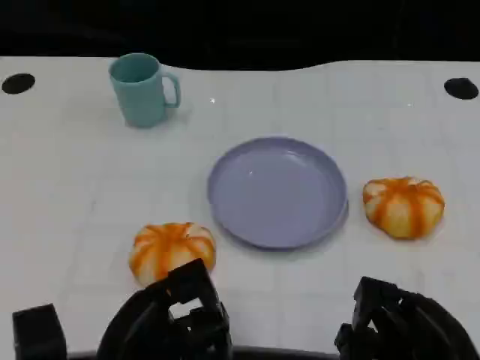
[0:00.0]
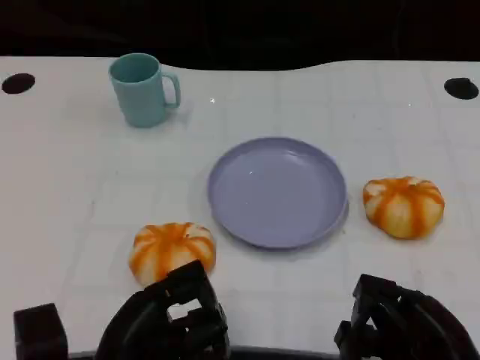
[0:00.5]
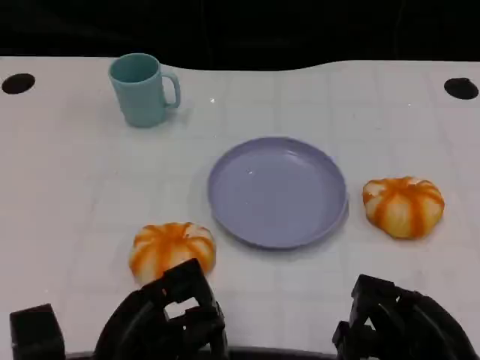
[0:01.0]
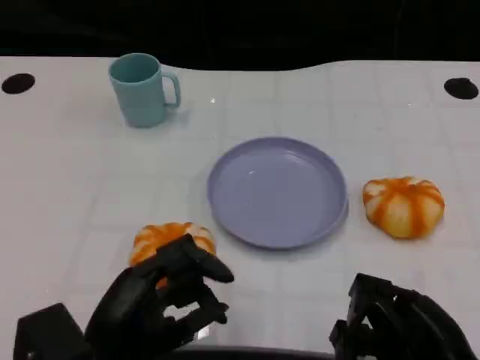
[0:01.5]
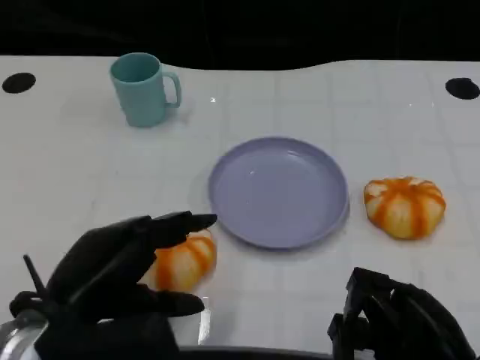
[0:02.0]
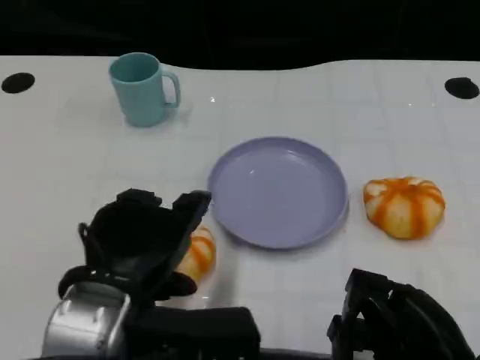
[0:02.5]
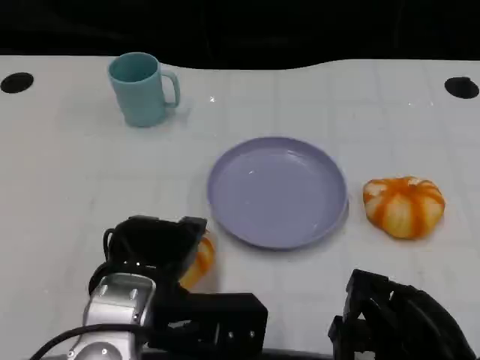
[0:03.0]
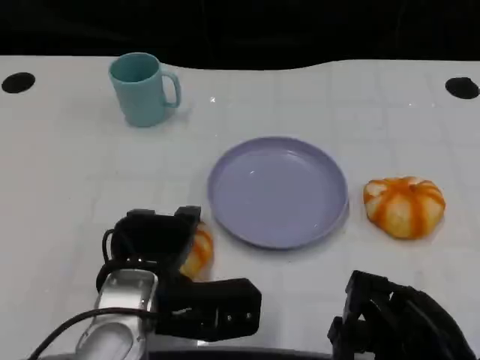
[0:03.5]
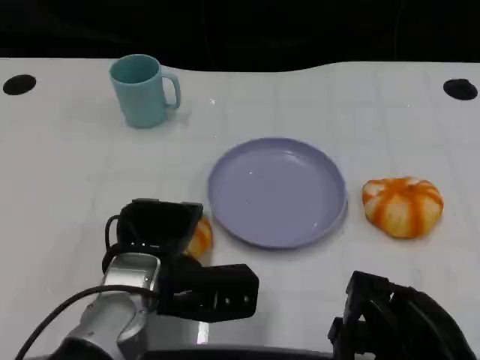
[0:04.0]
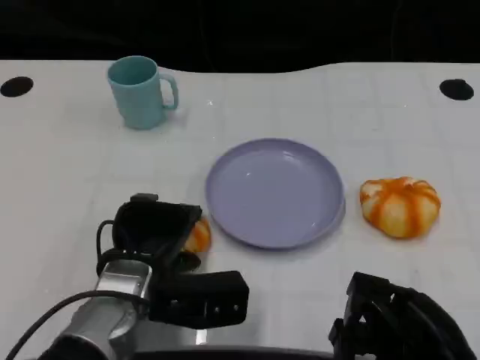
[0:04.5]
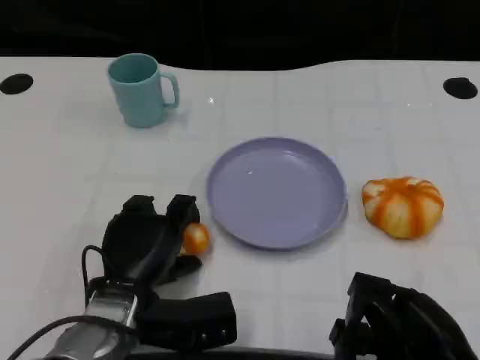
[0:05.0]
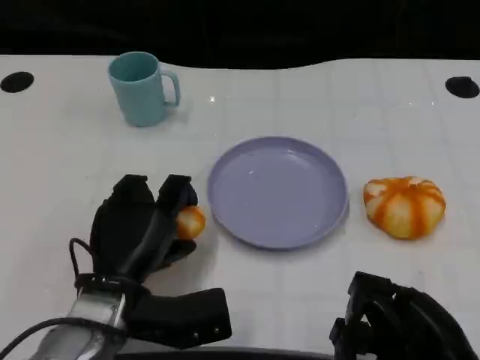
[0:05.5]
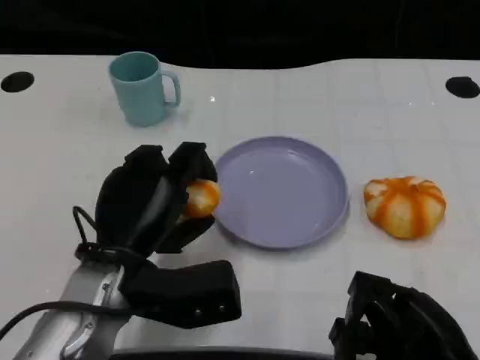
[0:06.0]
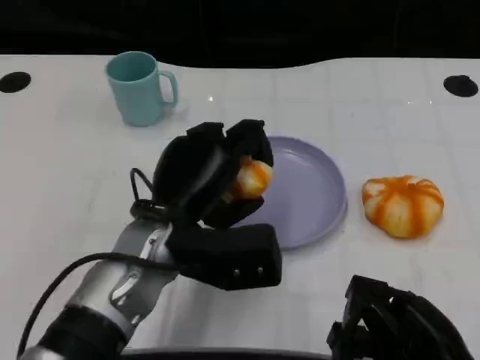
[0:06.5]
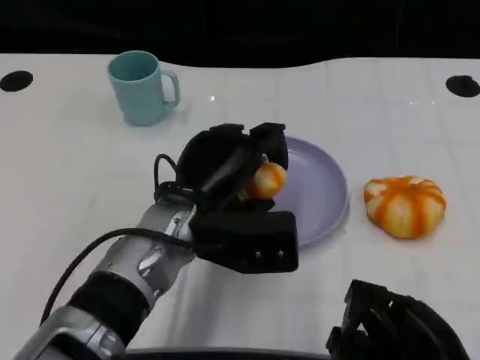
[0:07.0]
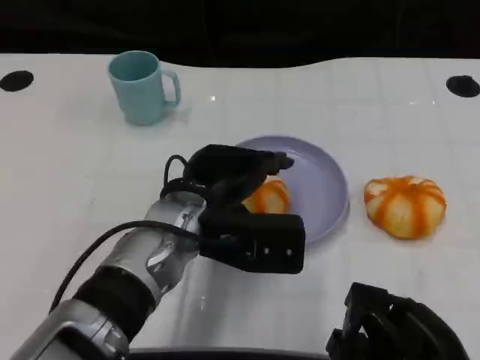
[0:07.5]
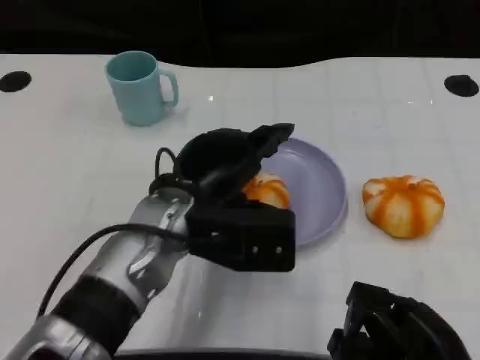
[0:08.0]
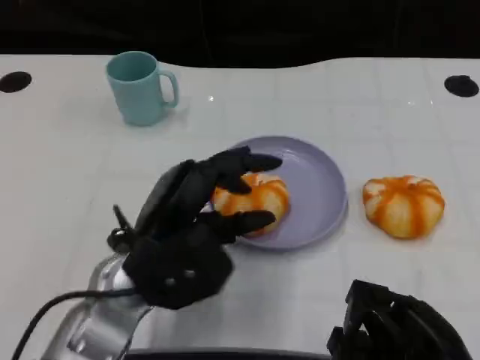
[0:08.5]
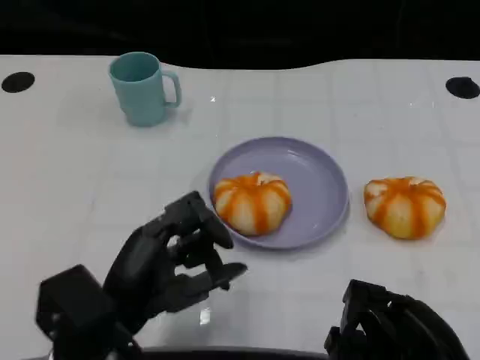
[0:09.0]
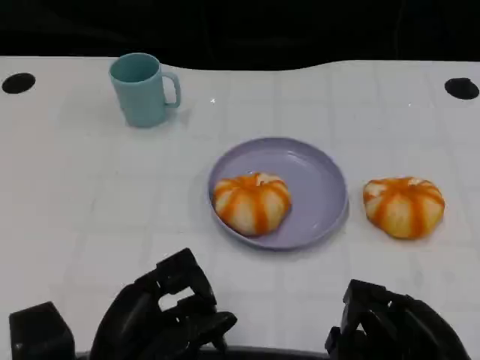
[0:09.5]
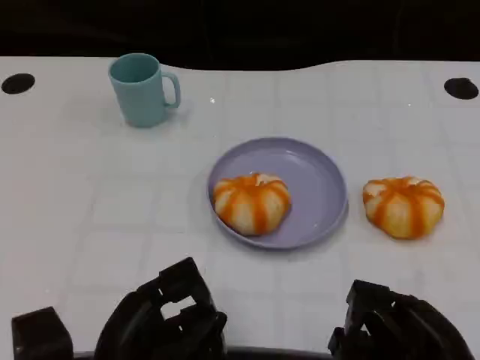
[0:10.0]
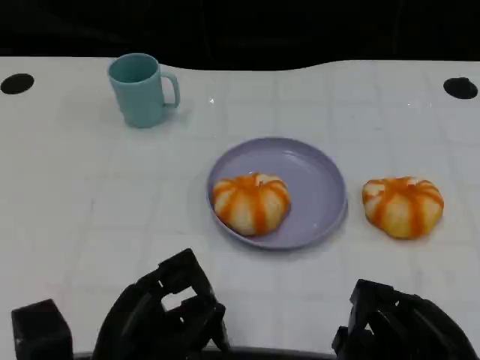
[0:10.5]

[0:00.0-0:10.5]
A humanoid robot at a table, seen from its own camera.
Task of the whole recording: Grasp the bread from the table and place it into the plate.
0:00.0 to 0:02.0: The left hand is displaced upward by approximately 10 cm.
0:02.0 to 0:04.0: The left hand moves forward, downward and to the right, about 15 cm.
0:04.0 to 0:06.5: The left hand changes place by approximately 5 cm.
0:08.5 to 0:10.5: The left hand shifts some 10 cm backward and downward.

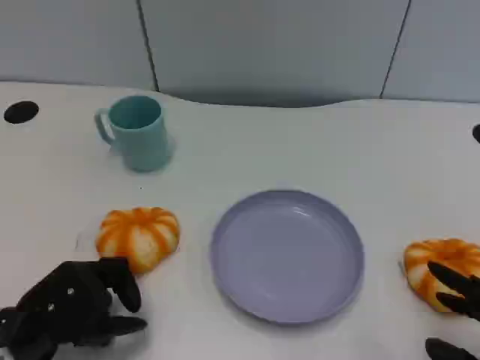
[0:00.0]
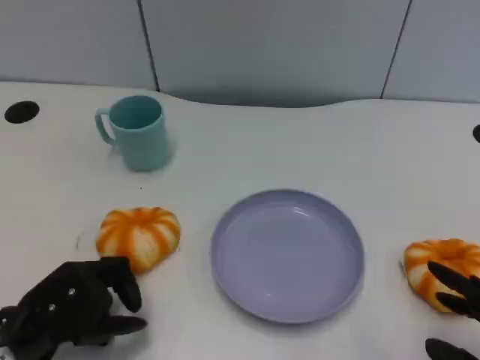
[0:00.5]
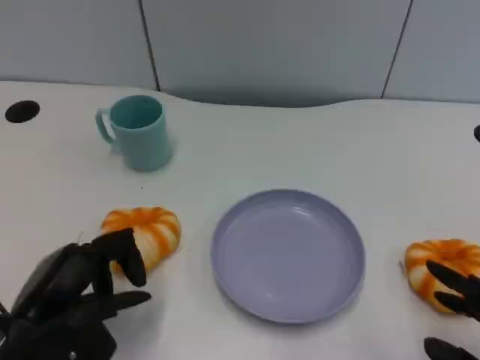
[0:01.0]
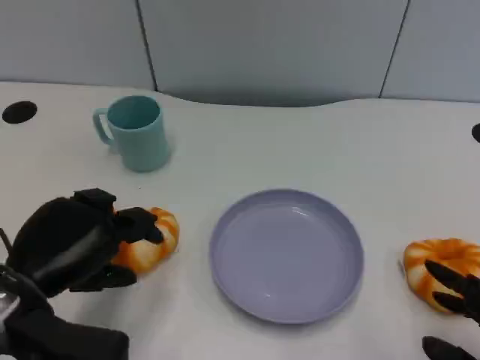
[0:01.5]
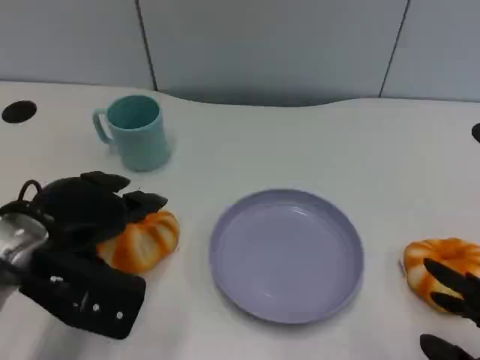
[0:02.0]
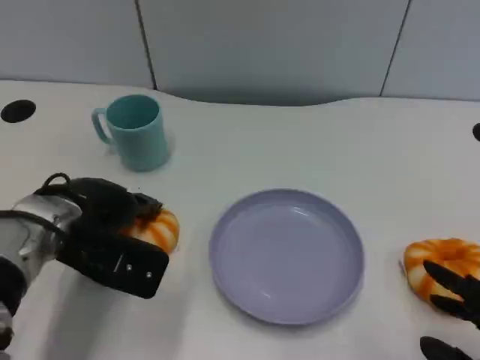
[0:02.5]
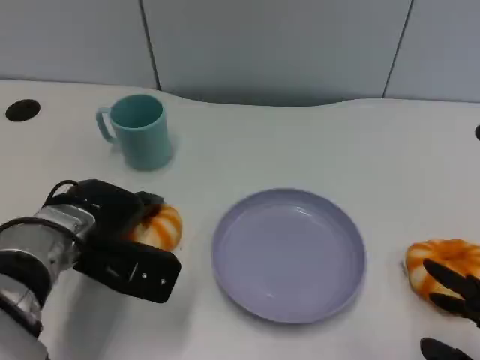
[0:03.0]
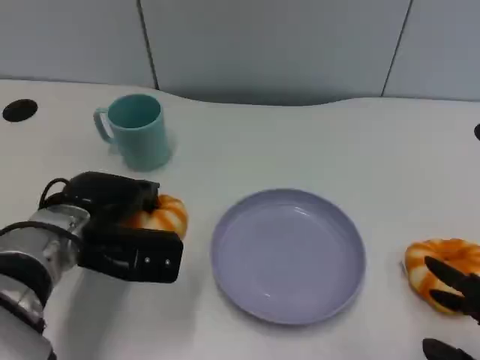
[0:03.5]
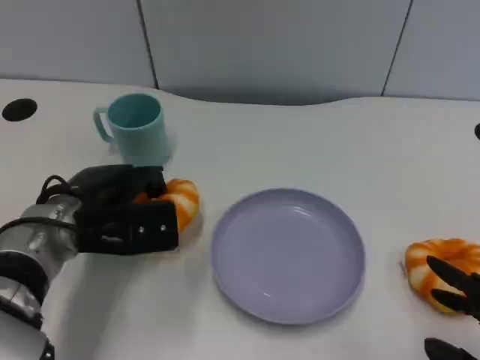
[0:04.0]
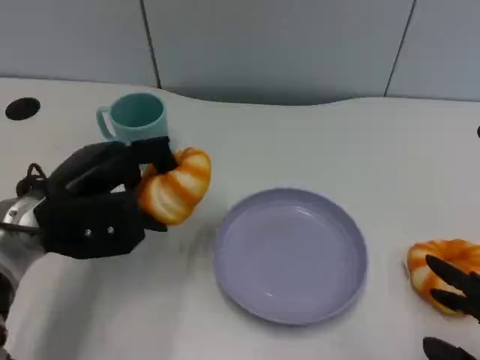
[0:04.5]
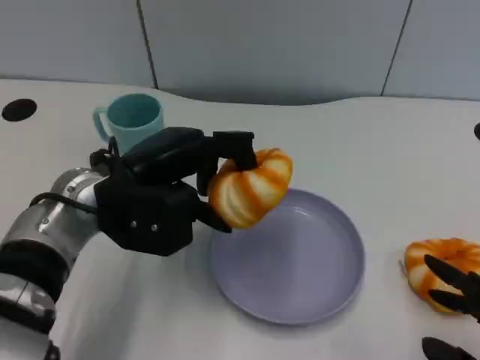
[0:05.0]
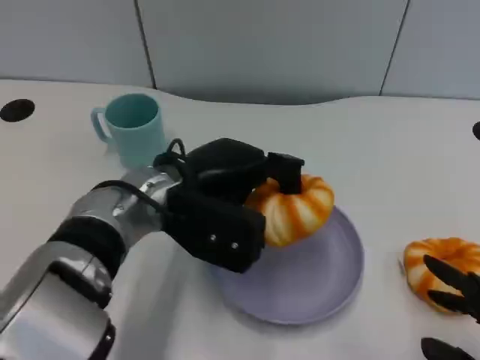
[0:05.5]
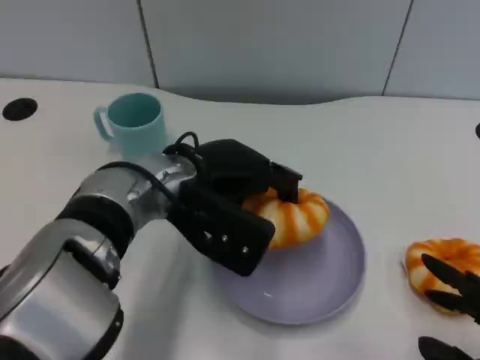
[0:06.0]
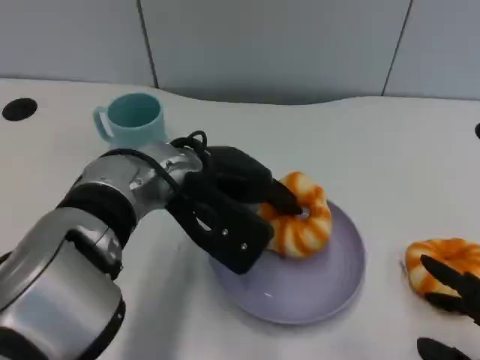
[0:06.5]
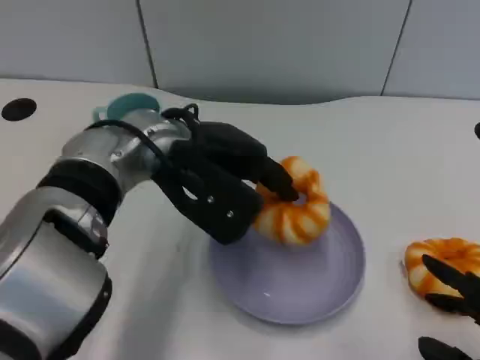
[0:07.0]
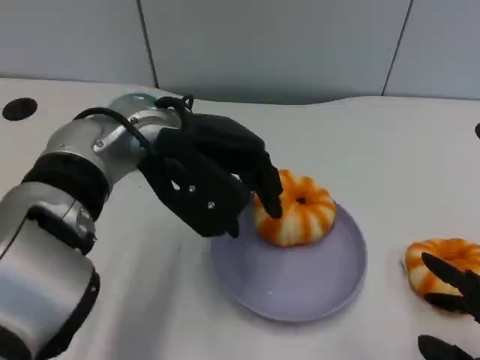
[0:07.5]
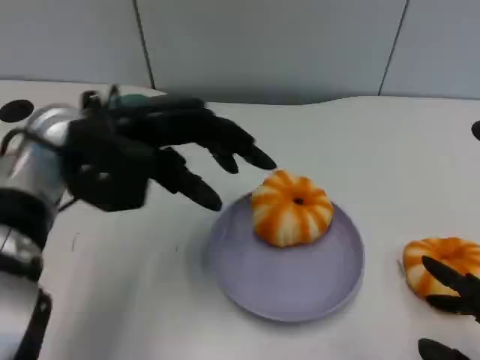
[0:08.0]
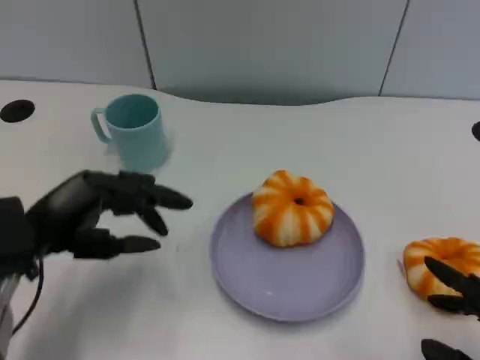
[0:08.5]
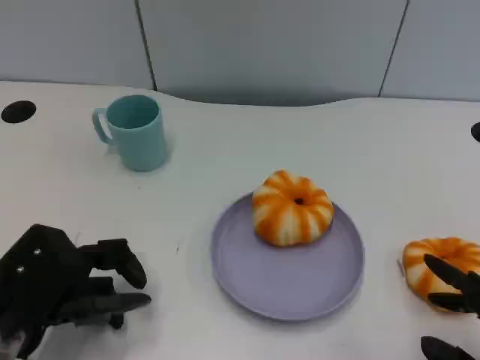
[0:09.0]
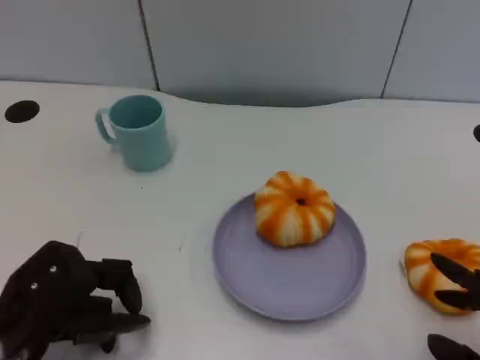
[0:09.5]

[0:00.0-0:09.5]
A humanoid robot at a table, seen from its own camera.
Task of the whole recording: Grasp the bread from the table and place it into the plate.
0:00.0 to 0:02.0: The left hand is displaced forward and upward by about 10 cm.
0:02.0 to 0:04.0: The left hand shifts by approximately 5 cm.
0:04.0 to 0:05.5: The left hand moves to the right, approximately 10 cm.
0:05.5 to 0:07.5: The left hand travels upward by approximately 5 cm.
0:07.5 to 0:09.5: The left hand moves to the left, backward and downward, some 25 cm.

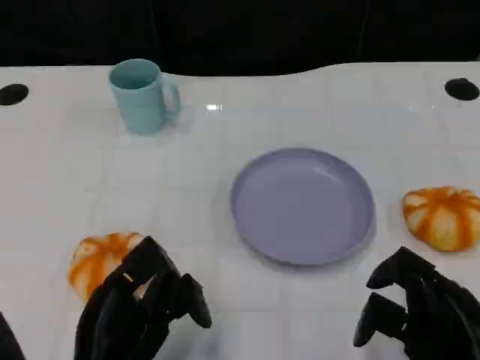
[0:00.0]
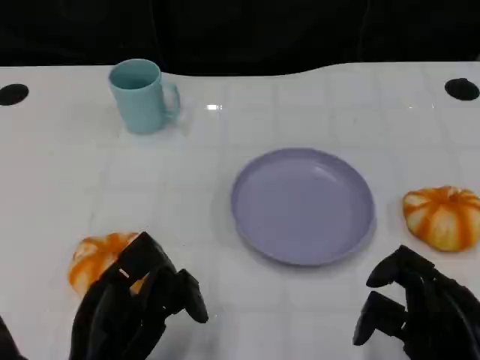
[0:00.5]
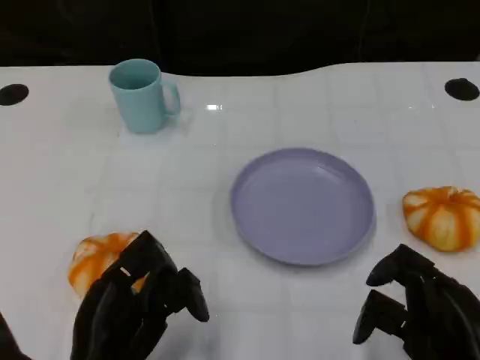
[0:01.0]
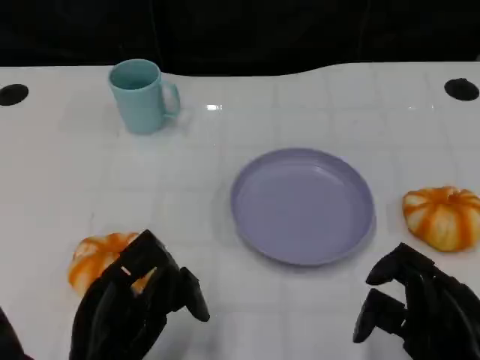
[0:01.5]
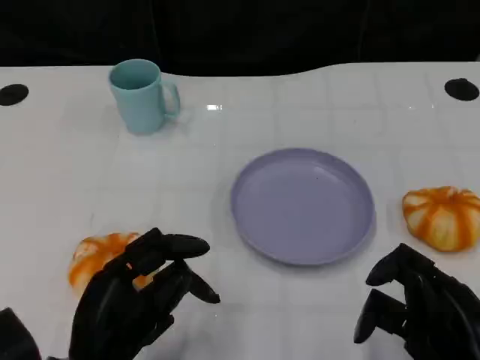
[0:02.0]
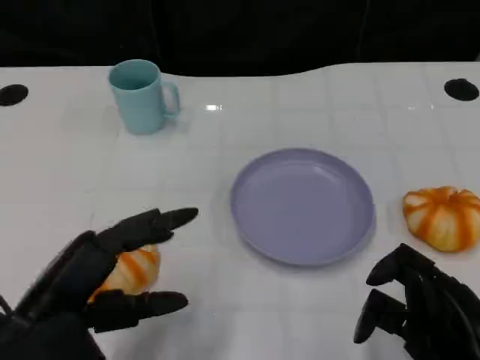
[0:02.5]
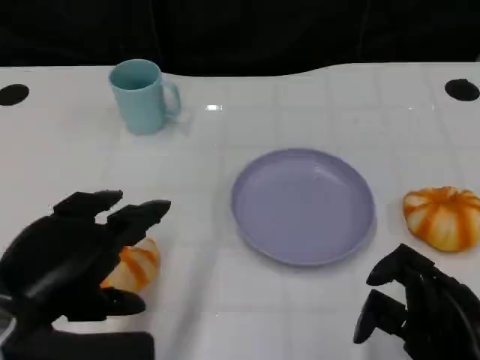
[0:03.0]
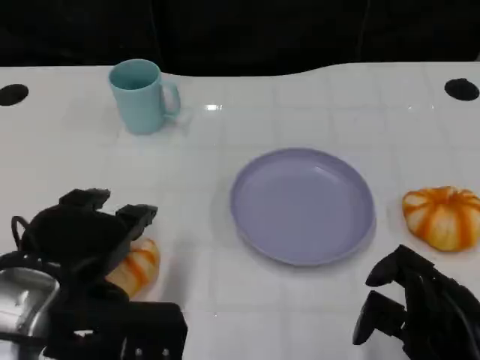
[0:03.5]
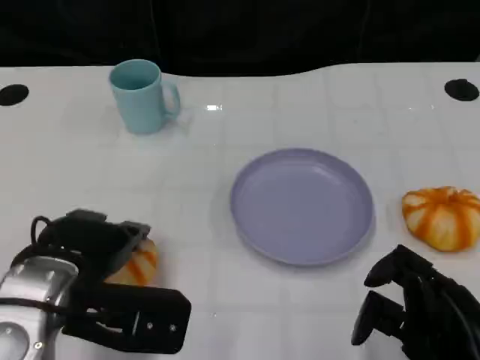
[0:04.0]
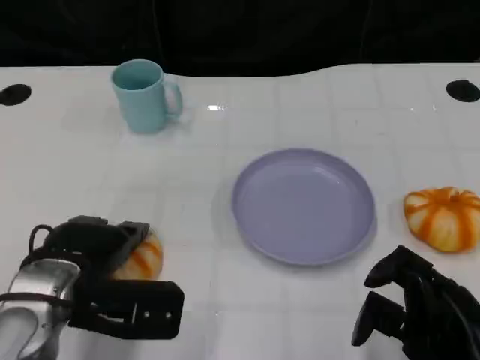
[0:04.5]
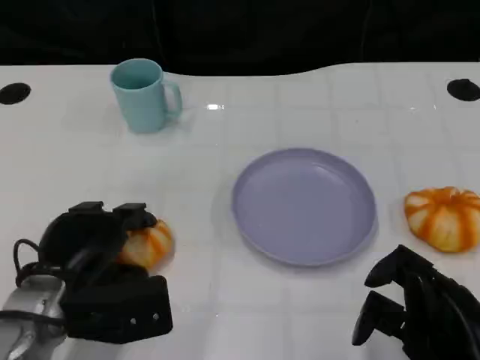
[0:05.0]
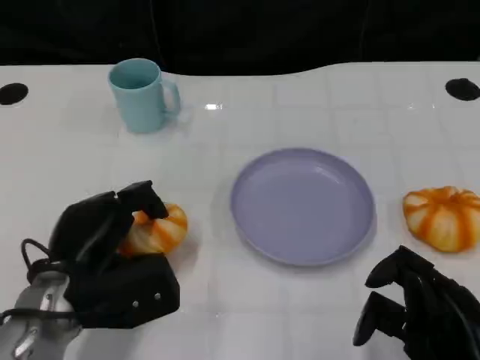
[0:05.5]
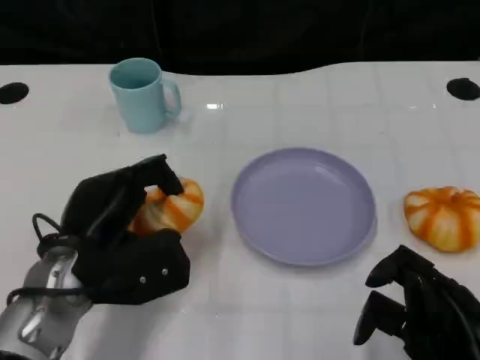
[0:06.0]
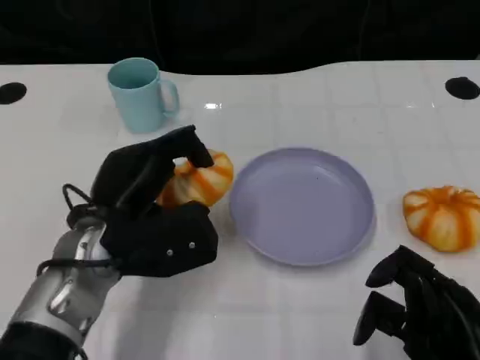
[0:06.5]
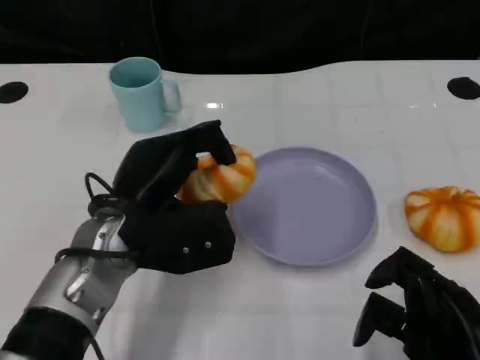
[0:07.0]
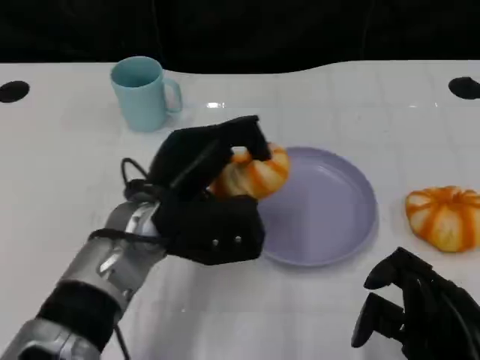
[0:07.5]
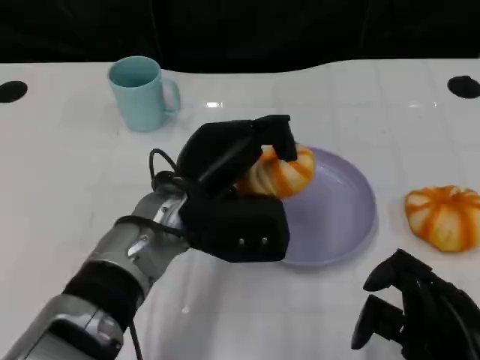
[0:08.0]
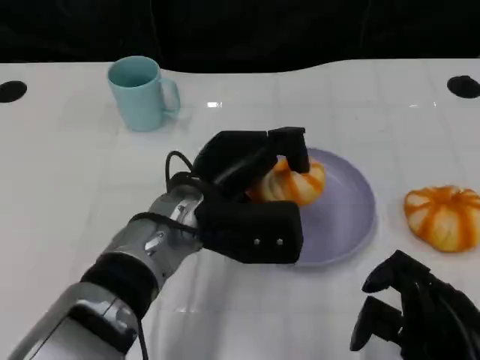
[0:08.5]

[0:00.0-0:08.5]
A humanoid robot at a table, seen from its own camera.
Task of the whole recording: Grasp the bread from the table and place it into the plate.
0:00.0 to 0:02.0: The hands stay close to where they were, moving slightly.
0:02.0 to 0:04.0: The left hand shifts about 10 cm forward and upward.
0:04.0 to 0:06.5: The left hand moves approximately 5 cm.
0:06.5 to 0:08.5: The left hand is displaced to the right by approximately 10 cm.
